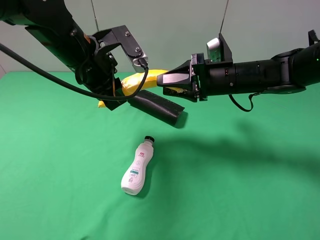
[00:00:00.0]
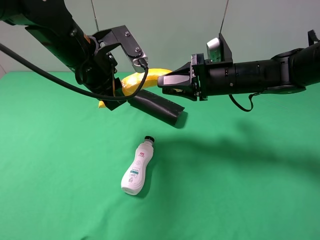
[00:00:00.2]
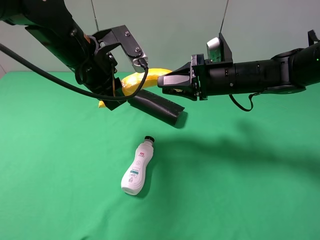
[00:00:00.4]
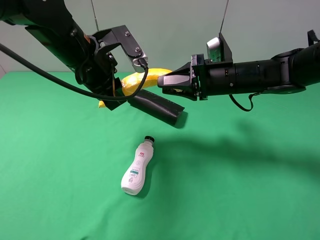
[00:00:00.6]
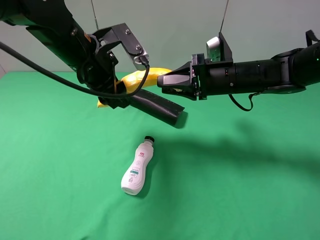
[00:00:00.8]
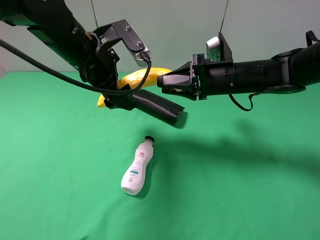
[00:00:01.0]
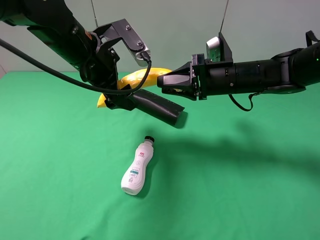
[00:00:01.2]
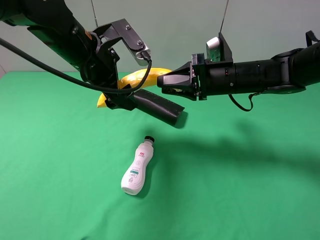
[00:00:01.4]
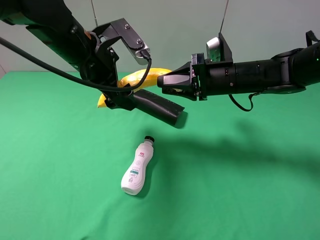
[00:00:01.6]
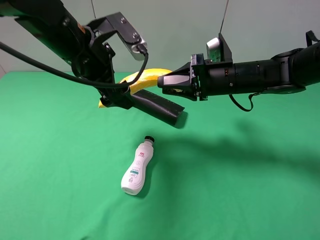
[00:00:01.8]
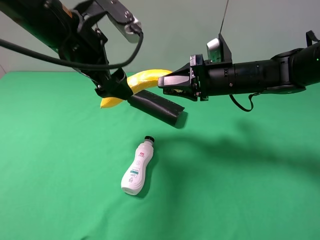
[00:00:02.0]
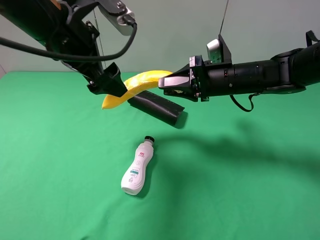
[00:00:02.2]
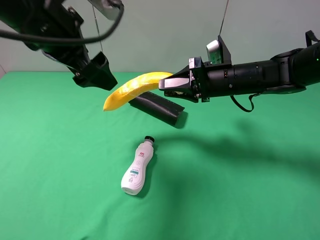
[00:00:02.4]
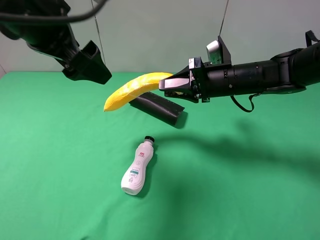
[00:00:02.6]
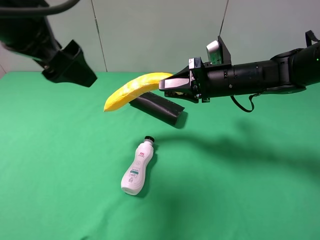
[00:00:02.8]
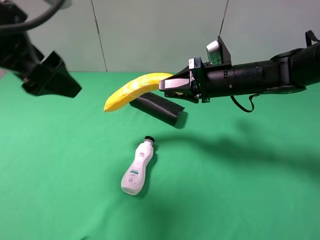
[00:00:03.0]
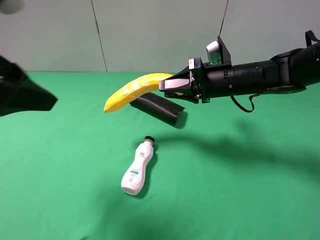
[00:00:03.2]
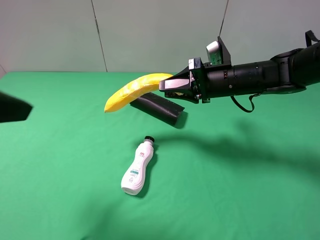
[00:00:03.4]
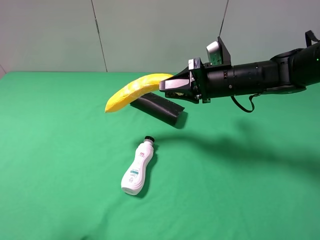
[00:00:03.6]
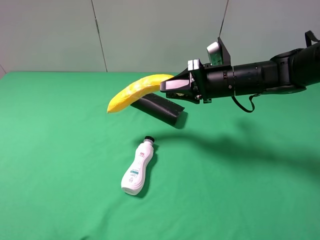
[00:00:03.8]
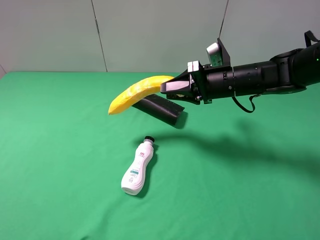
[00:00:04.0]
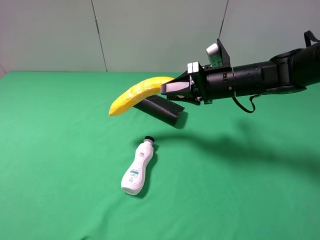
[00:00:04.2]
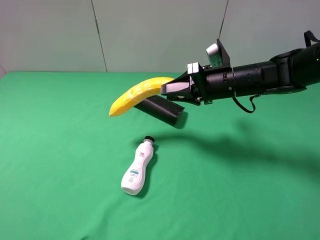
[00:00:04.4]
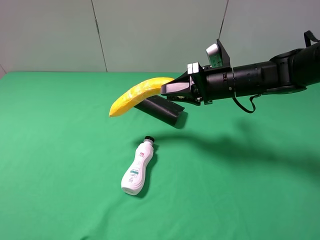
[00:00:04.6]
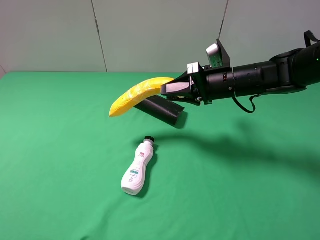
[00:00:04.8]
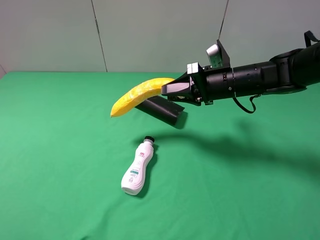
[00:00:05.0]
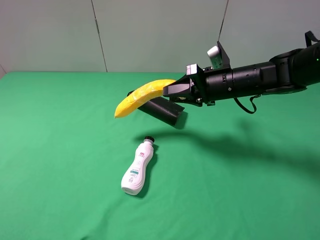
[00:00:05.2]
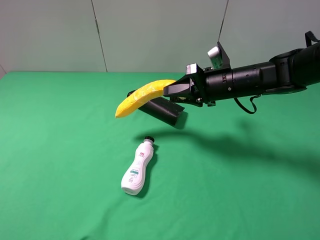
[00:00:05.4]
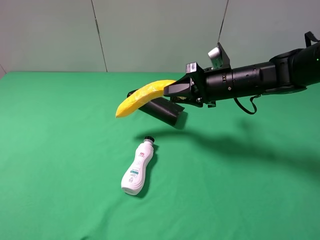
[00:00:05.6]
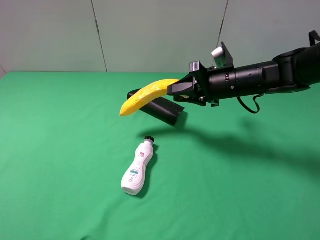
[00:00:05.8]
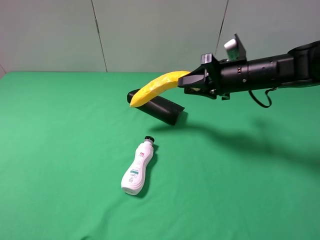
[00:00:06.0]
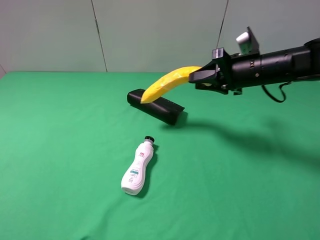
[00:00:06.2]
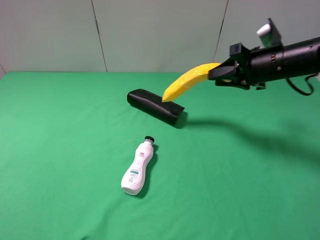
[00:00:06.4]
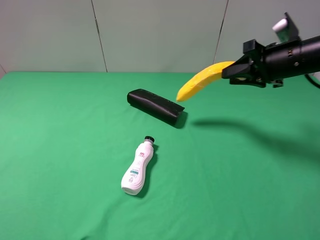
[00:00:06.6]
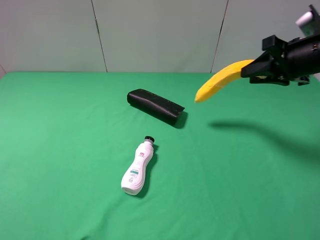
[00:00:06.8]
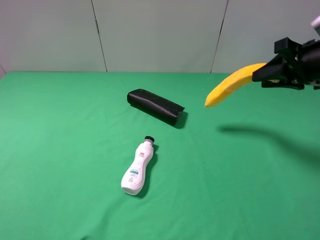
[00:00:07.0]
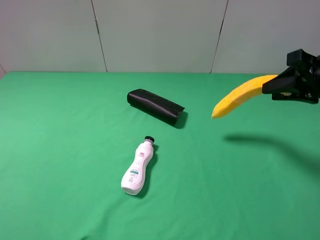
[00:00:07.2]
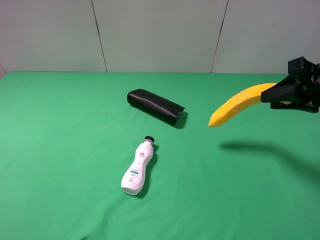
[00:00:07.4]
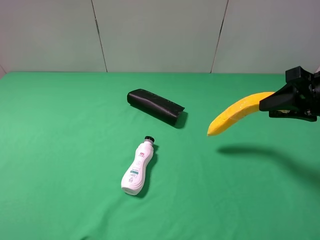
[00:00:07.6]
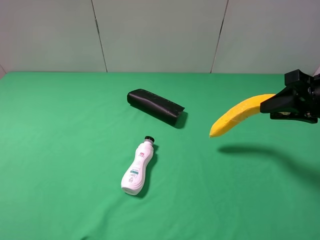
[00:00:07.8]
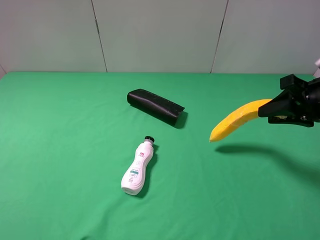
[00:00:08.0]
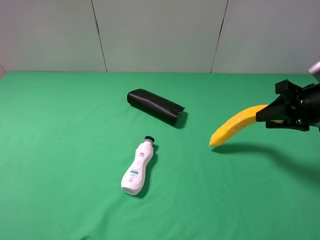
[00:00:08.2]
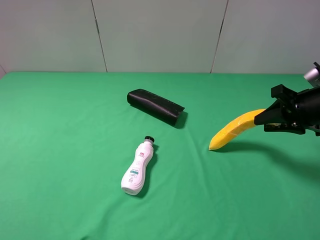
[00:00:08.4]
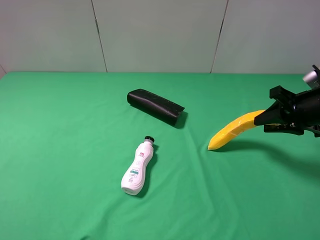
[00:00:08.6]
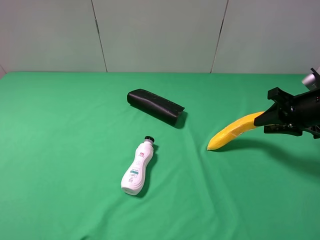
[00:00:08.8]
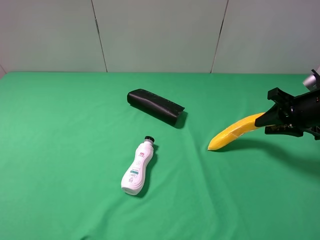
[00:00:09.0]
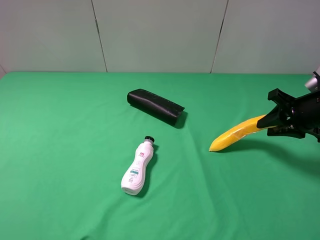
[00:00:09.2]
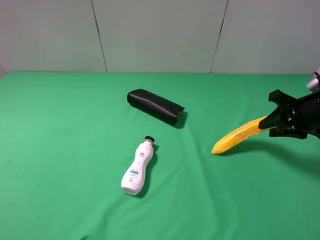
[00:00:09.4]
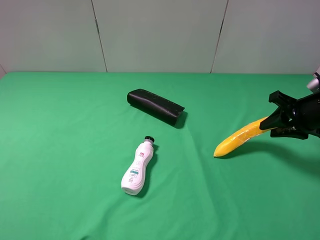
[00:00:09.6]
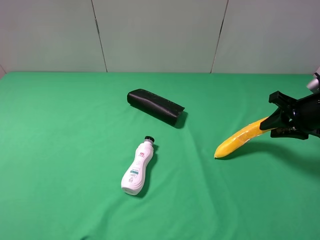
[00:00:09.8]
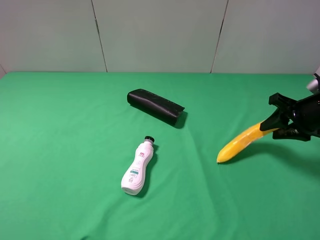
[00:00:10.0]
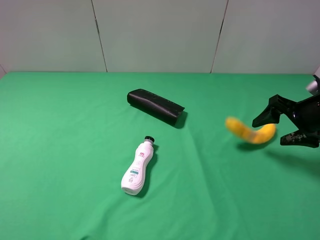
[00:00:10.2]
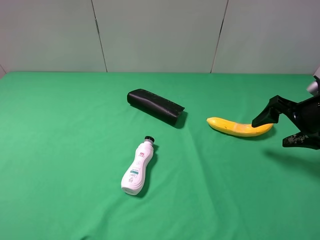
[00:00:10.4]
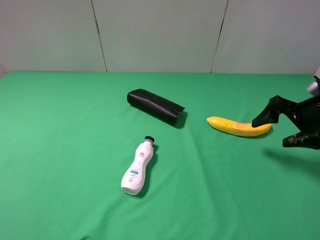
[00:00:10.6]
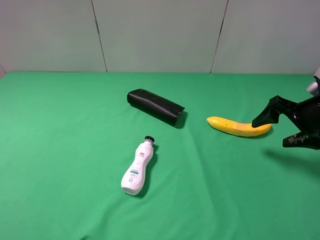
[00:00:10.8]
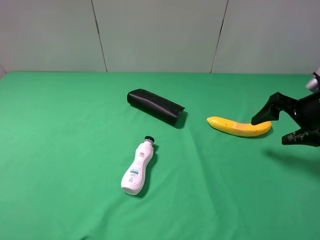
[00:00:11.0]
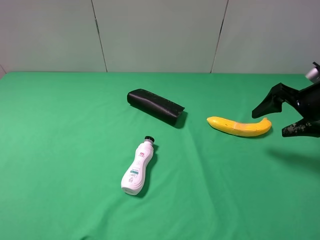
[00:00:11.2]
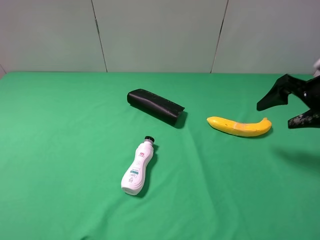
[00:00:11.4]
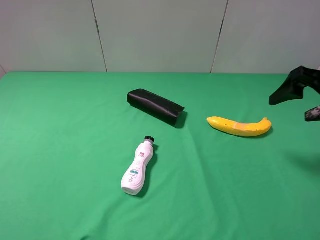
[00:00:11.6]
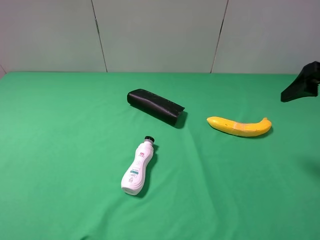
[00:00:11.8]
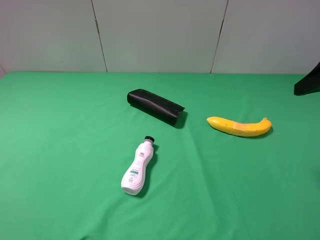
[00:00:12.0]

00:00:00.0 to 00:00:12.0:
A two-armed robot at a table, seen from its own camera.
Task of the whole recording: use the left gripper to pick up the item and transfer it from the left gripper to the right gripper.
Step, 00:00:01.8 to 00:00:10.6: The right gripper places banana on the right side of the table.
00:00:00.0 to 00:00:01.6: The left gripper opens up.
00:00:01.6 to 00:00:03.0: The left gripper is displaced backward, upward and to the left by about 15 cm.
00:00:03.0 to 00:00:04.4: The left gripper heads backward and to the left, covering some 20 cm.
00:00:06.0 to 00:00:07.6: The right gripper travels to the right and backward by approximately 15 cm.
00:00:07.6 to 00:00:09.0: The right gripper travels downward by about 5 cm.
00:00:09.0 to 00:00:10.4: The right gripper opens.
00:00:10.4 to 00:00:12.0: The right gripper travels upward and backward by some 15 cm.
